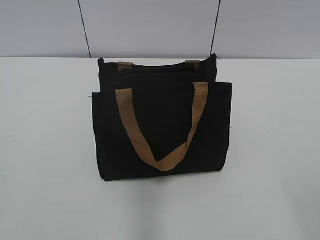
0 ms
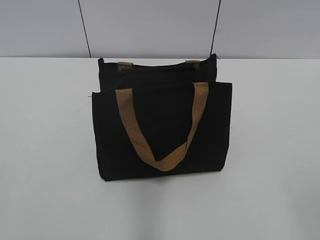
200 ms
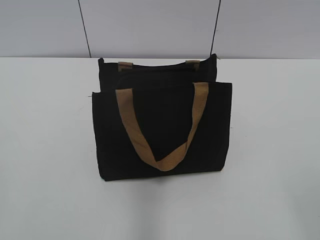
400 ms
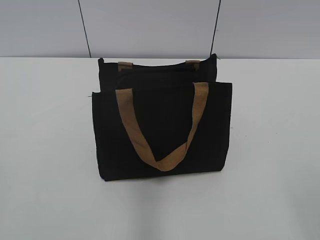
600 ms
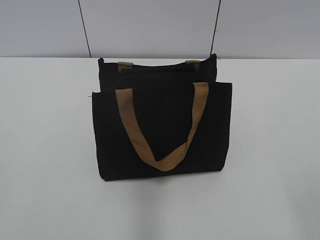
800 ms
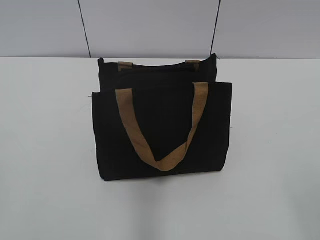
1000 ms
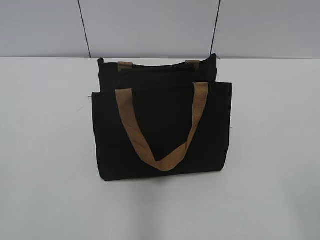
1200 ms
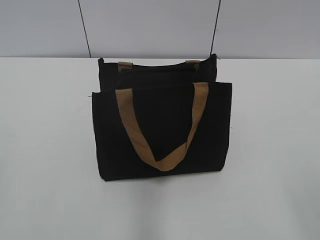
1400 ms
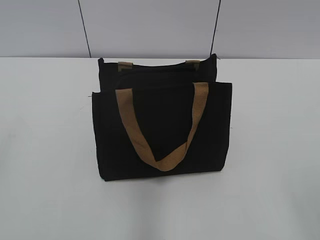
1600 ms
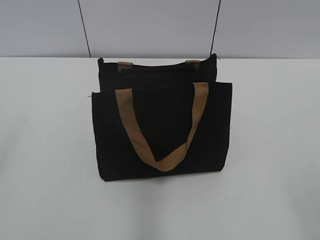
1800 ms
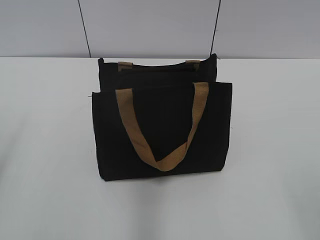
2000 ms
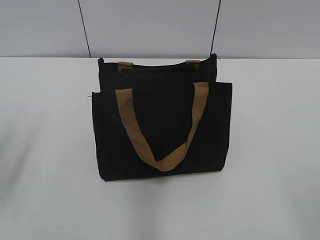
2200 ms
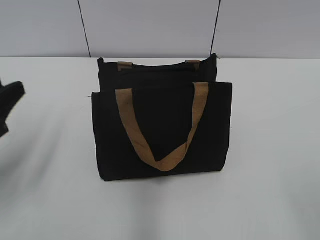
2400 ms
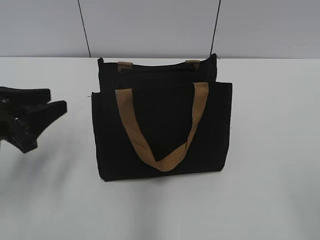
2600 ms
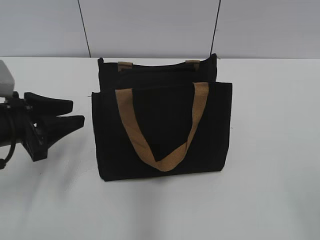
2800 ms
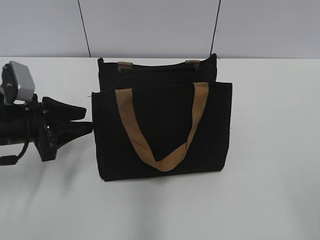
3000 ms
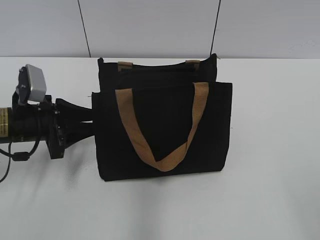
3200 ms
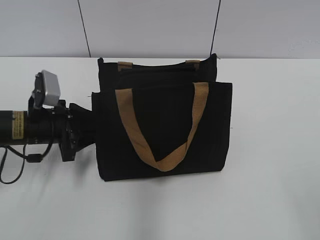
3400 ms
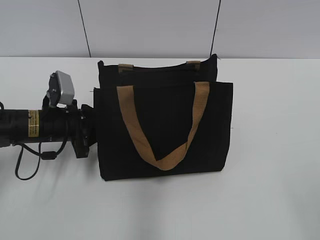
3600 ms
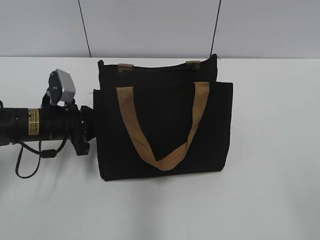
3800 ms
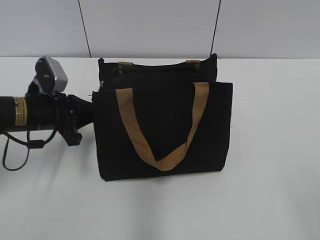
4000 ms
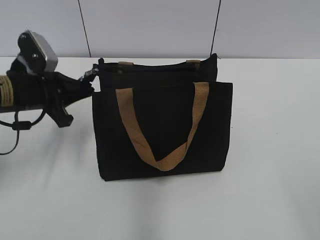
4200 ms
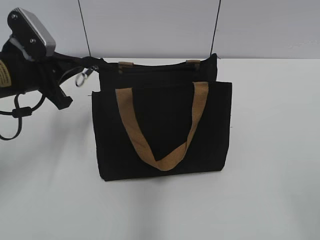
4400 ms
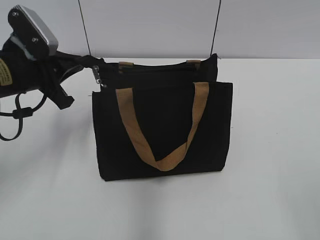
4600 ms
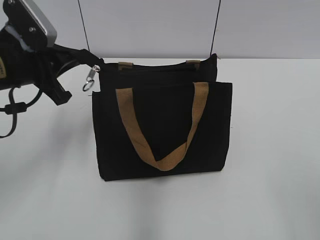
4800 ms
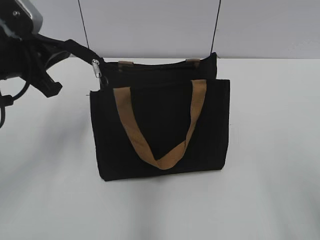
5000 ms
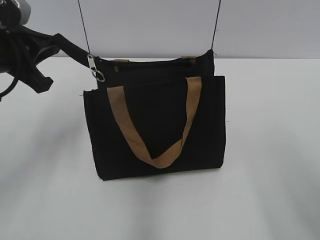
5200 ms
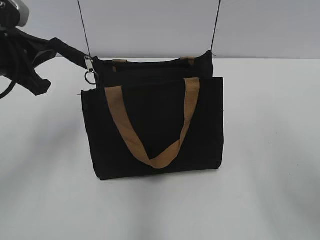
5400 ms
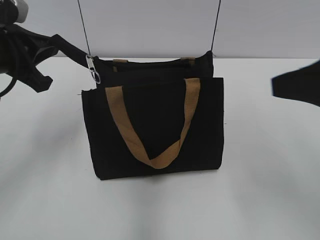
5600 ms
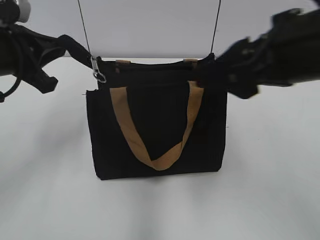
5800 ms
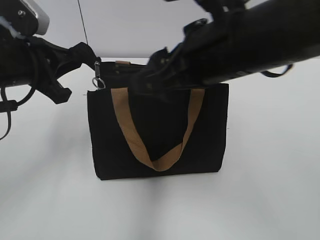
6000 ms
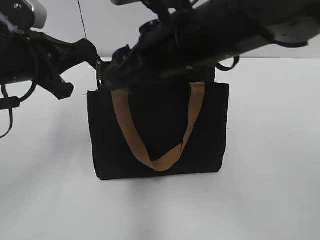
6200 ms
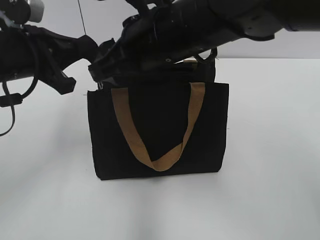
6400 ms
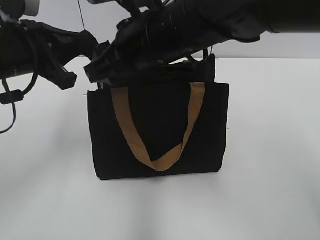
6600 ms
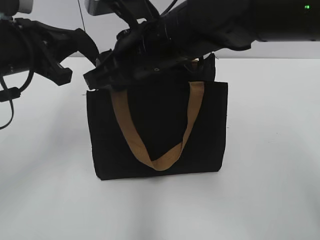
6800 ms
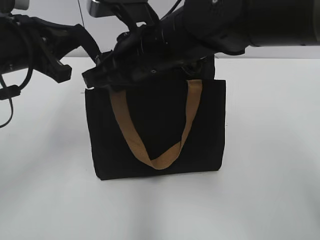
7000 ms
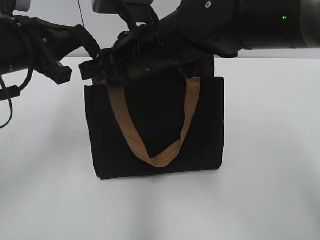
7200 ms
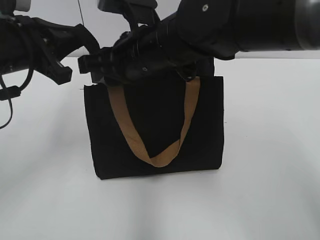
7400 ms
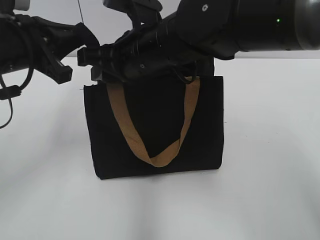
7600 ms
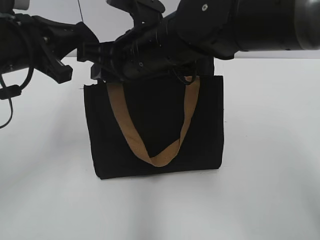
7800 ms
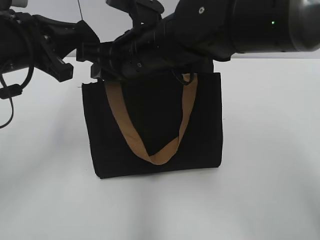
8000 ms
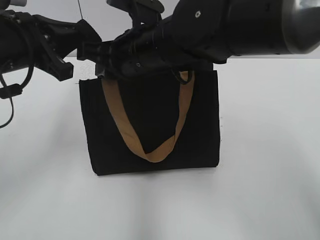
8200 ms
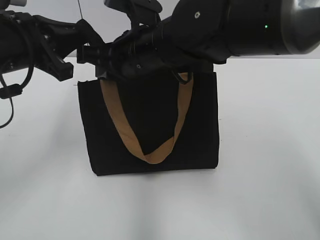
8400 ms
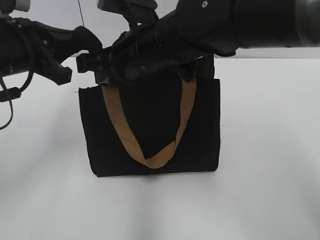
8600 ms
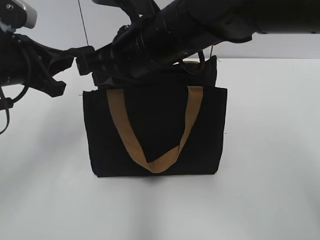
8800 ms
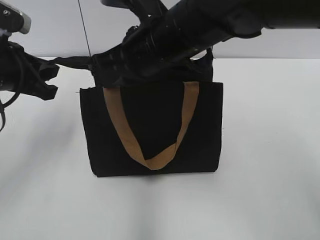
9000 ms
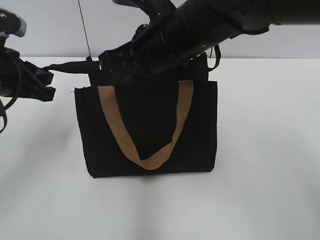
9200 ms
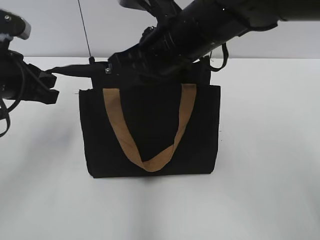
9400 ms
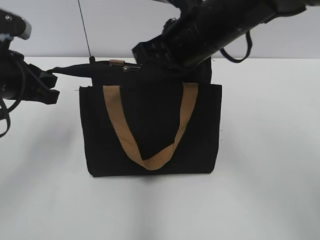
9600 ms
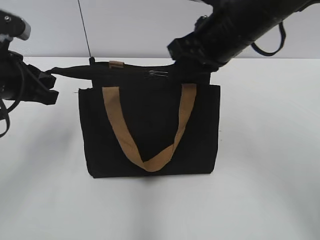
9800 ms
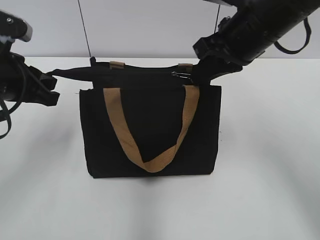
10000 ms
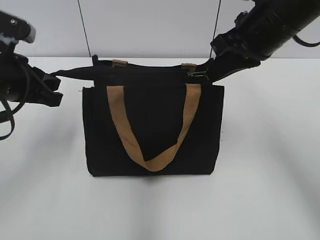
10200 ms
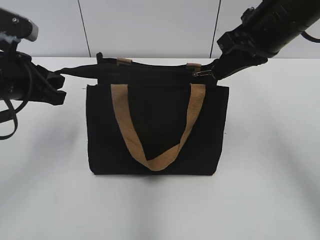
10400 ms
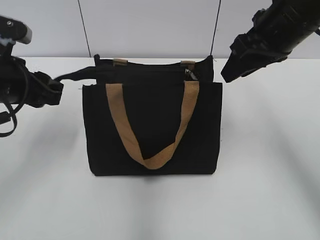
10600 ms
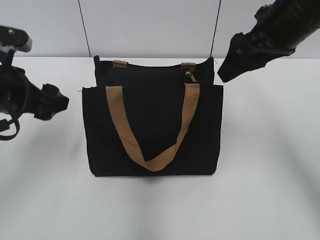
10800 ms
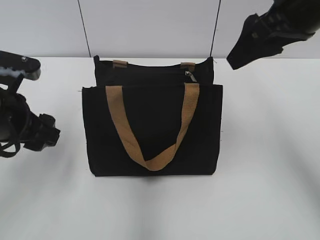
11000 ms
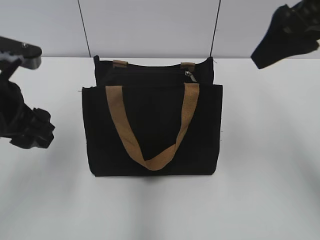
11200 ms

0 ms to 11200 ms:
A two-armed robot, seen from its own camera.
Step, 0 ms to 10400 ms: Zip up the bag with your right hand.
1600 ms to 3200 ms: The left gripper shifts about 35 cm forward and downward.
3200 ms to 4800 ms: The left gripper moves upward, approximately 10 cm, and closes its fingers.
4800 ms to 6400 ms: The right gripper is displaced forward and to the left by roughly 40 cm.
6400 ms to 8000 ms: The right gripper ends up about 5 cm from where it was.
8000 ms to 9600 ms: The right gripper is displaced to the right by roughly 5 cm.
9600 ms to 11200 ms: The left gripper is displaced backward by roughly 5 cm, and opens. The right gripper goes roughly 15 cm to the right, upward and backward, and opens.

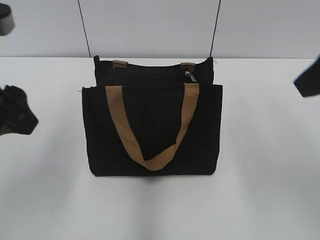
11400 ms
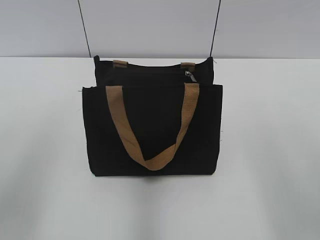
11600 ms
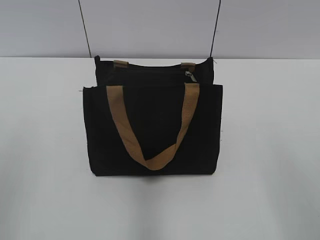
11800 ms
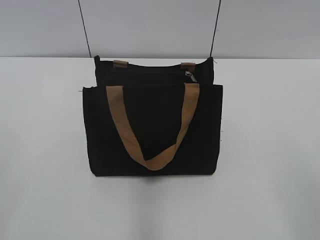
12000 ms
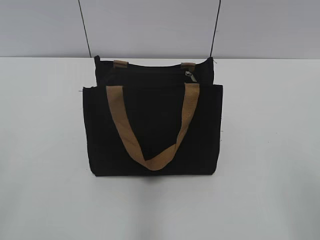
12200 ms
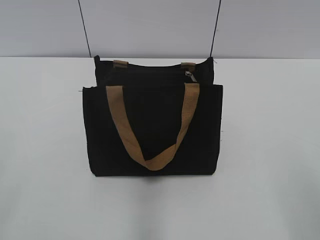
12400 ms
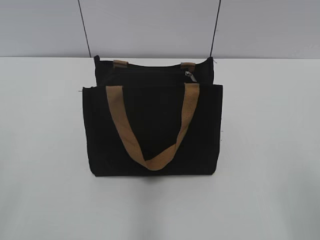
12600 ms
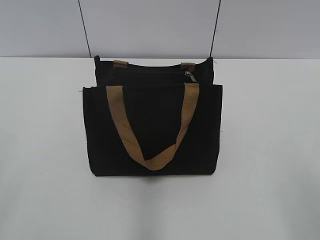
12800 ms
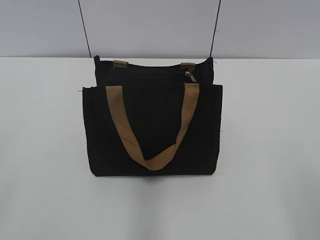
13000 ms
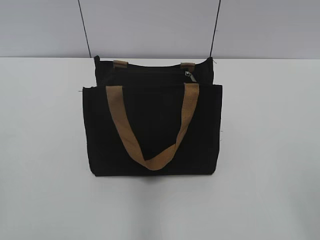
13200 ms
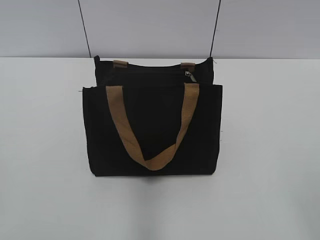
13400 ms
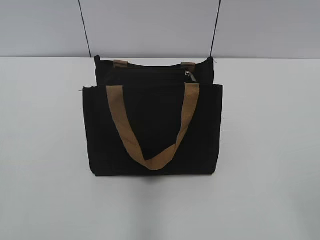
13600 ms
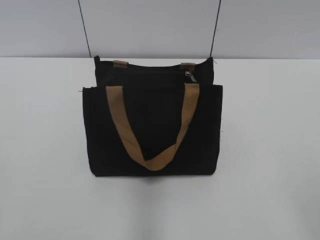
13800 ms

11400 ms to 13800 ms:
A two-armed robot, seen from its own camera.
11400 ms to 12600 ms: The right gripper goes some 20 cm backward and downward; the left gripper heads backward and to the left, covering some 20 cm.

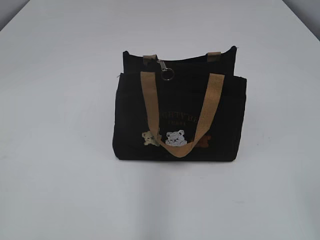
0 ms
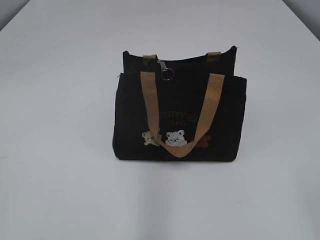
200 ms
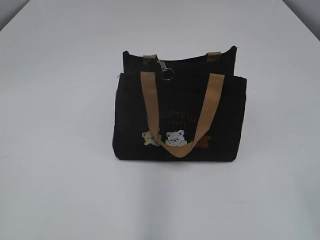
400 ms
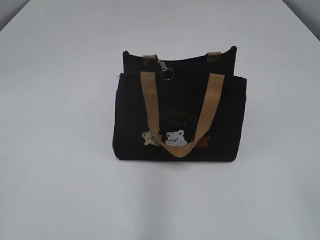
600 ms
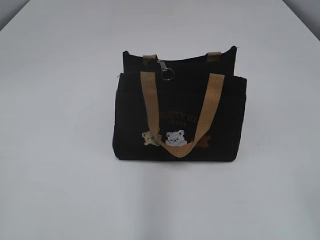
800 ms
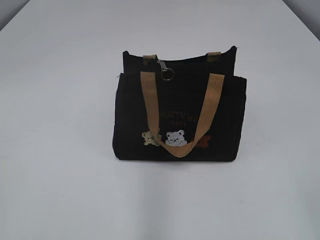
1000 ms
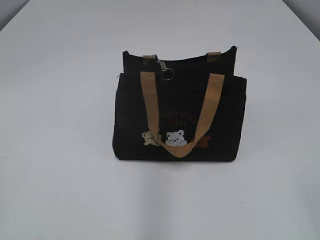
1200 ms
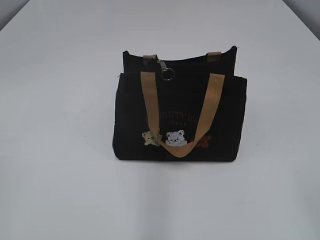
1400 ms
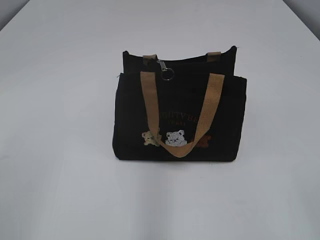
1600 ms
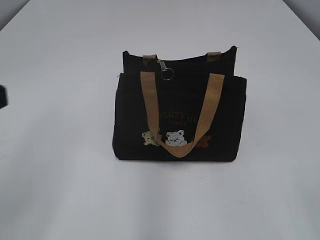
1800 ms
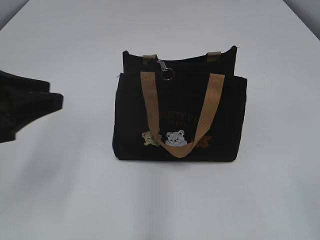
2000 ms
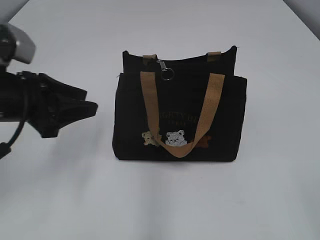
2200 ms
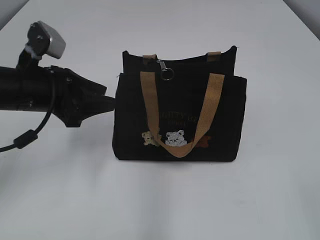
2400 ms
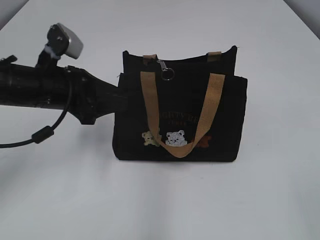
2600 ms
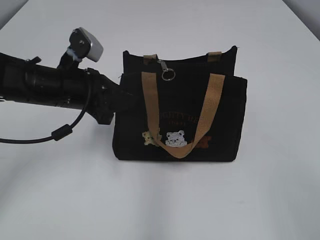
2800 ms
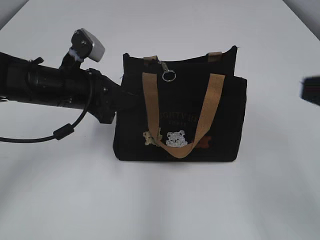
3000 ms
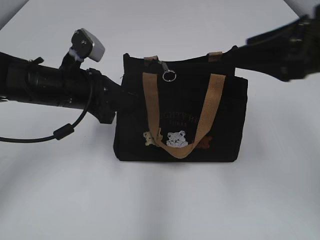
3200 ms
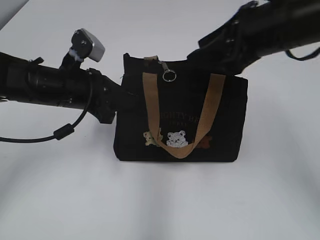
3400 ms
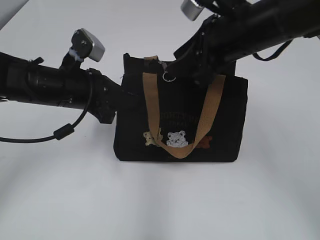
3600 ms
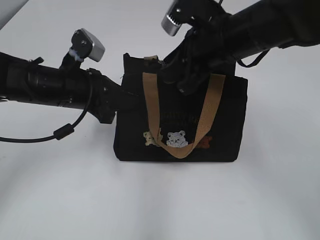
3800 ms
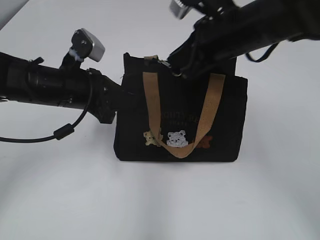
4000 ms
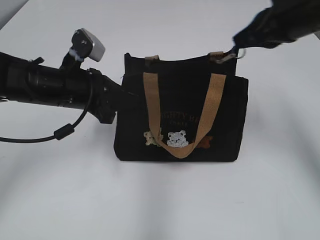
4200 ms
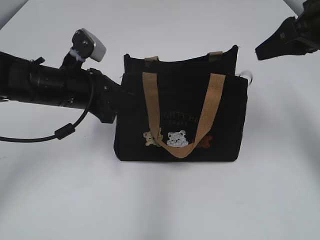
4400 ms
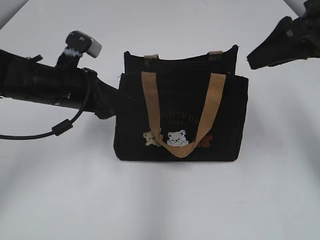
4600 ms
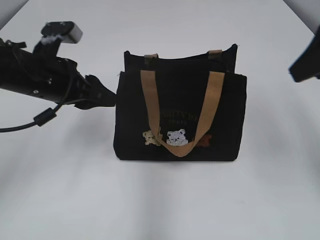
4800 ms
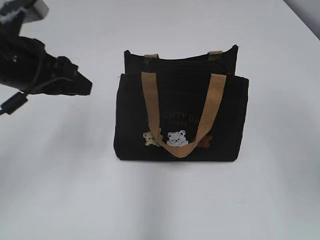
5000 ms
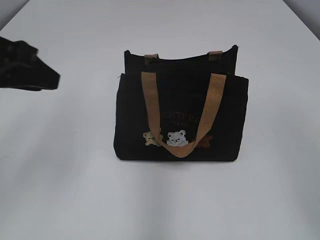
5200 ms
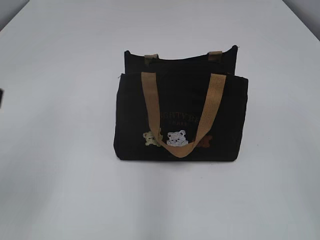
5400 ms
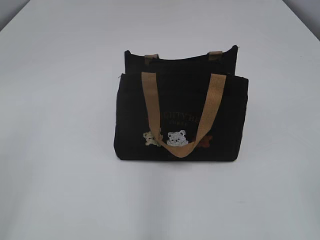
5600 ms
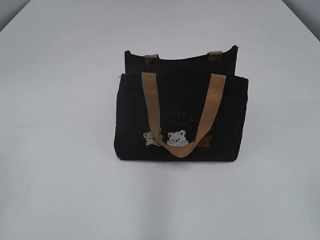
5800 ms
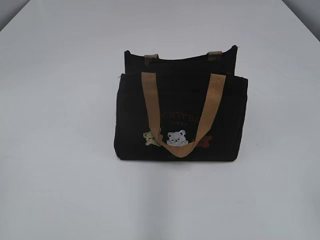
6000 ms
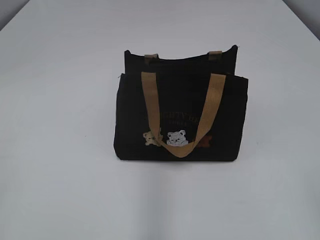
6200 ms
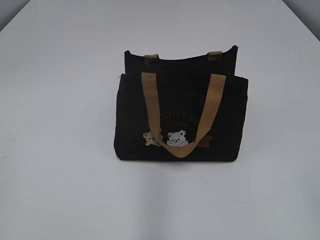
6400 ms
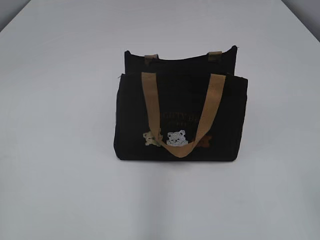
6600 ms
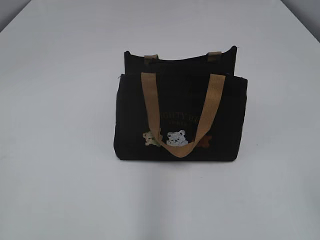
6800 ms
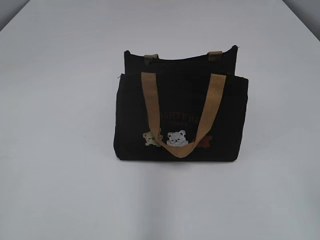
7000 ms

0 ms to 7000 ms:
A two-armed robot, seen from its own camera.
Step, 0 ms to 4200 ms: Pull open the zipper with your right hand.
Step, 4600 ms to 4800 ms: Hold the bag with your left hand.
1400 ms to 2800 ms: The left gripper travels forward and to the right by some 35 cm, and opens, then closes once more.
2800 ms to 4200 ms: The right gripper shifts some 30 cm forward, and closes its fingers.
4200 ms to 5600 ms: The right gripper travels backward by some 30 cm, and opens its fingers; the left gripper travels backward, upward and to the left by approximately 30 cm, and opens.
